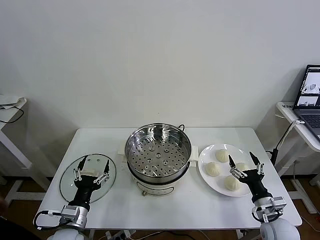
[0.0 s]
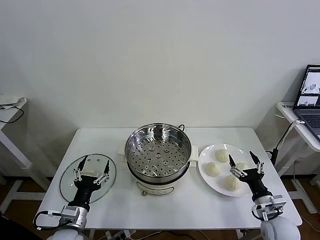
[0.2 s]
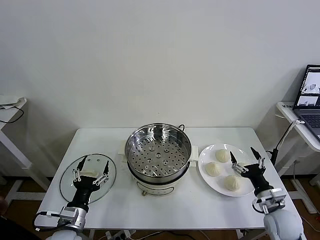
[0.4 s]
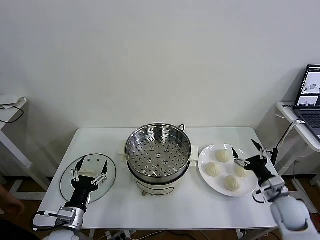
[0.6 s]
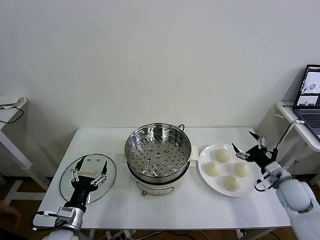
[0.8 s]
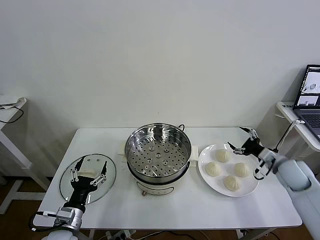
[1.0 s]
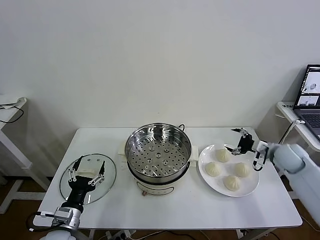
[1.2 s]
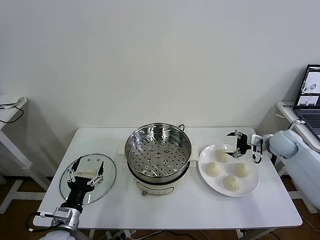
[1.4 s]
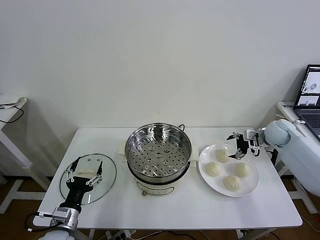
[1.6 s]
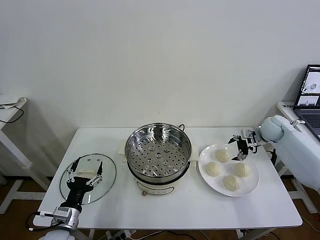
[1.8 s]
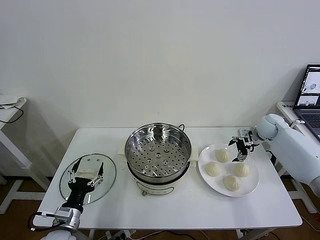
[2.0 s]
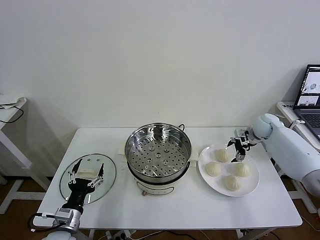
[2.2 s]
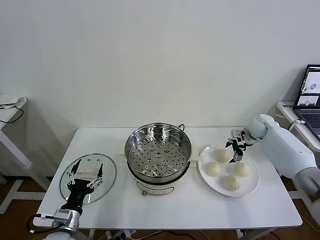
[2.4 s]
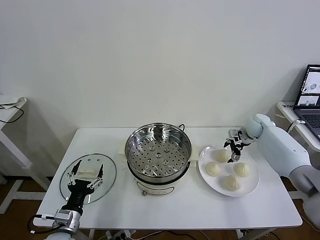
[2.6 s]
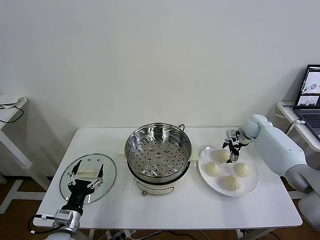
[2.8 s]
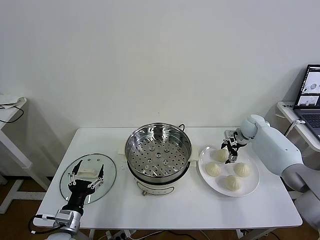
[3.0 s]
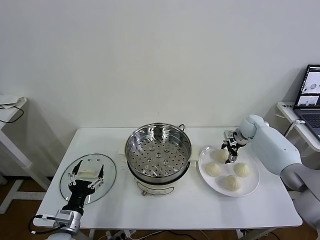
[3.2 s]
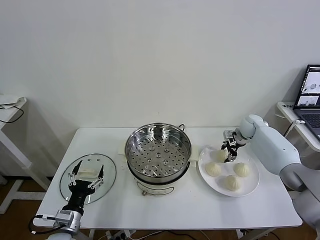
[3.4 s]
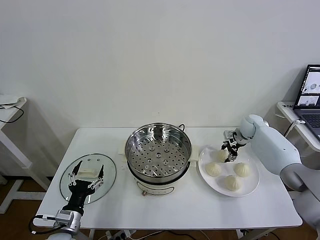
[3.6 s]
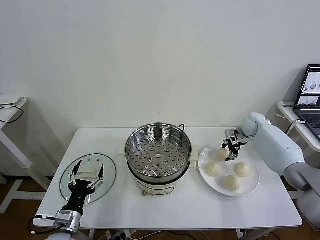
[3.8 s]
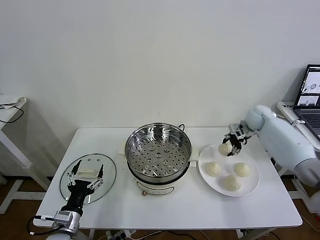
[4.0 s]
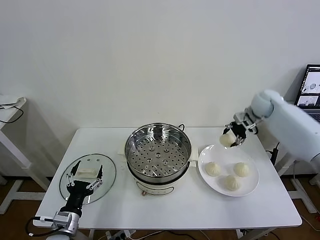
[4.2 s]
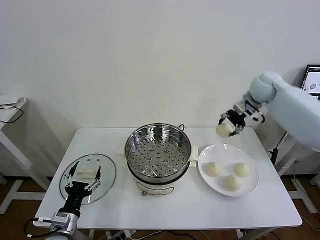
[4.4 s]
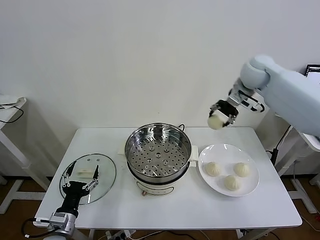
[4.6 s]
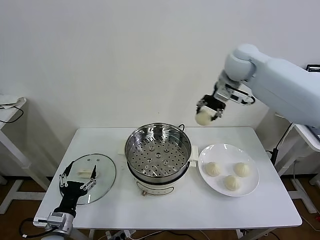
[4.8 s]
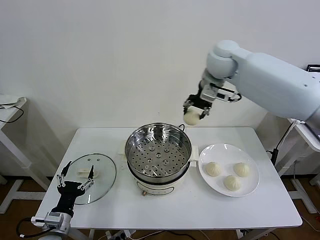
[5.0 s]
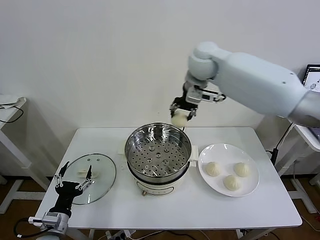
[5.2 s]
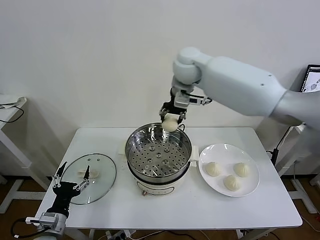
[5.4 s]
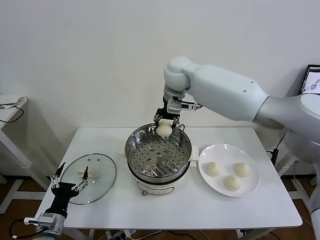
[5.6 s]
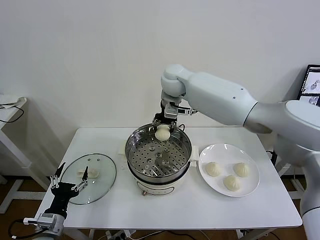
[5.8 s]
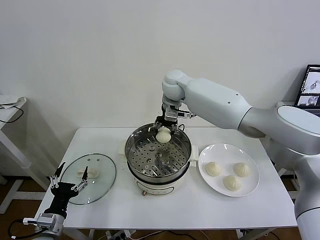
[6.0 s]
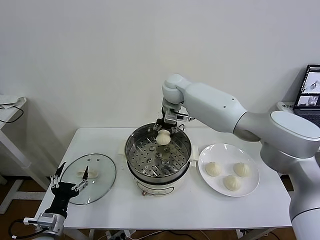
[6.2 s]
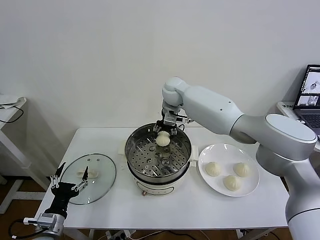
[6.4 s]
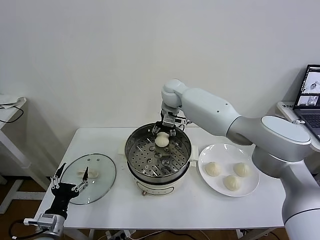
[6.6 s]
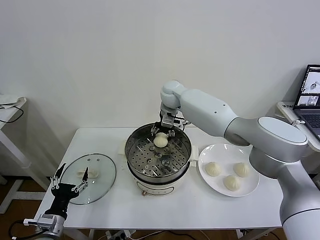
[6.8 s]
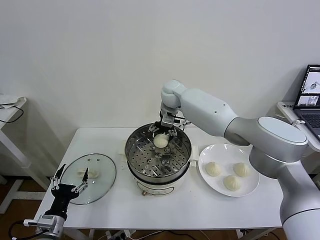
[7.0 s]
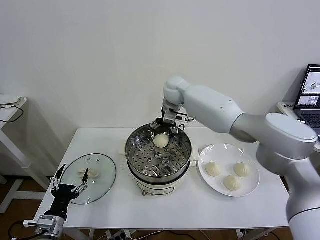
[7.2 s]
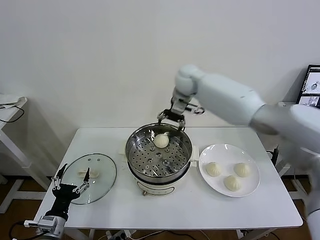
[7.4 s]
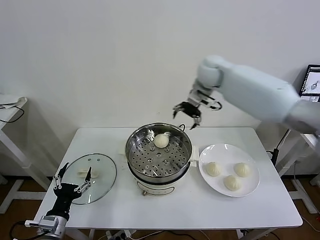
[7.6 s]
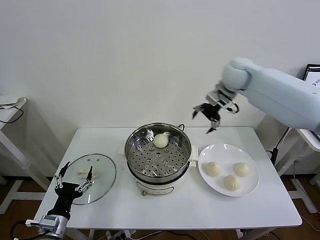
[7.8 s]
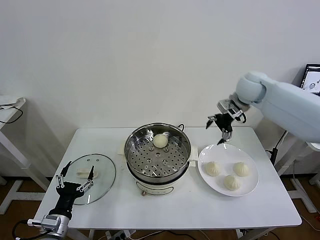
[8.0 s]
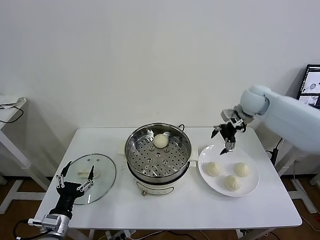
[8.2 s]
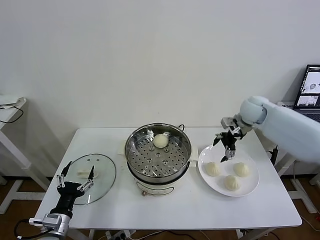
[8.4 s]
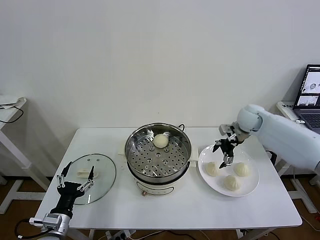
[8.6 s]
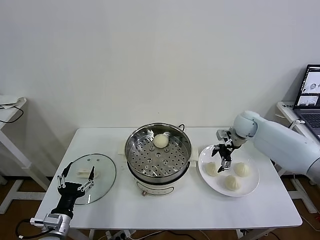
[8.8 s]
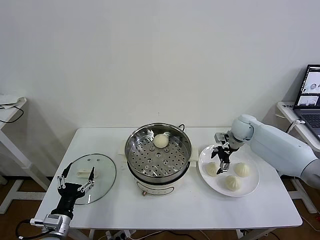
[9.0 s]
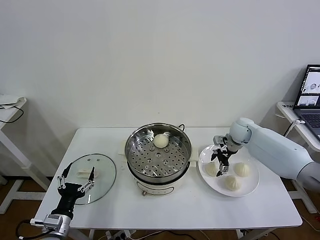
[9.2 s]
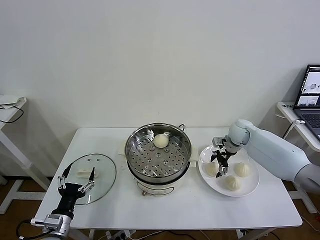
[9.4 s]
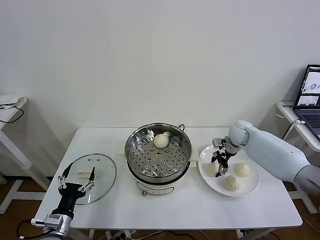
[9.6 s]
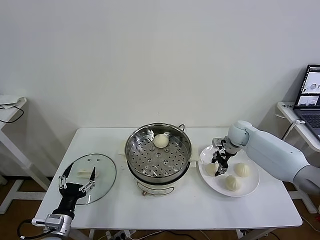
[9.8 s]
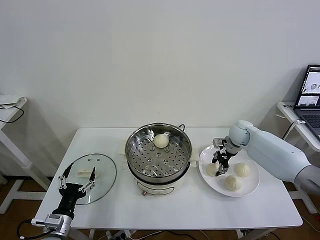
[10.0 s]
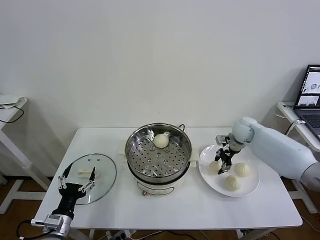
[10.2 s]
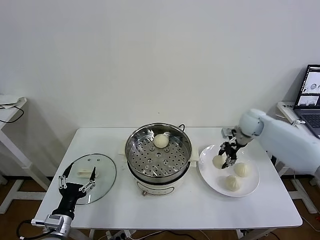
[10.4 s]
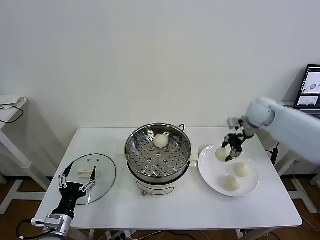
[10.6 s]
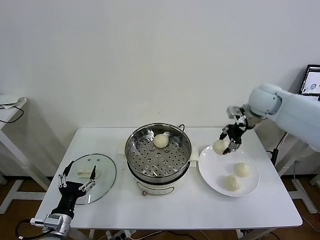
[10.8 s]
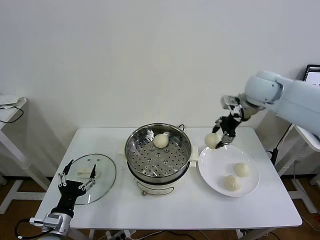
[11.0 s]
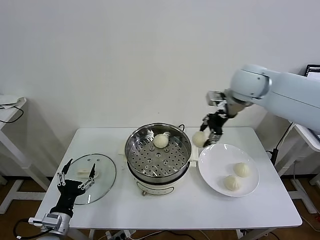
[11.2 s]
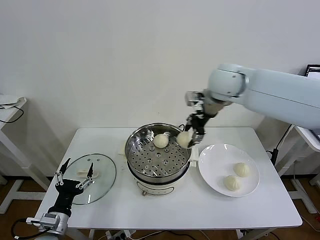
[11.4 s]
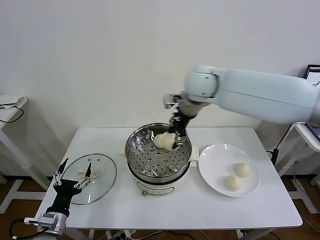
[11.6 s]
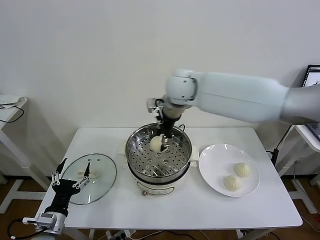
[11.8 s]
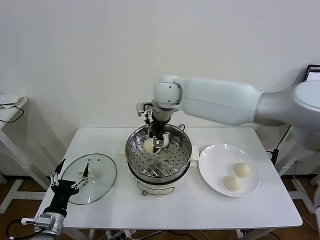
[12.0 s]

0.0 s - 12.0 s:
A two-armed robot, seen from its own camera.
Task of the whole recording: take steamed baozi put them in steamer then cover it.
Step, 0.0 s - 3.4 s: Grasp the baozi in the plate with right gripper.
Step, 3.6 s - 7.0 s: Place the baozi on the steamer with right gripper.
Step, 7.2 s - 10.0 s: Grasp the baozi in the plate with right gripper.
1.6 s - 3.0 s: The right gripper moves forward, approximately 5 cm.
3.0 s - 4.4 s: The right gripper is displaced upward by approximately 25 cm, and closes its fingers.
4.4 s - 6.0 s: The right gripper is displaced to the left by roughly 25 cm.
6.0 s - 7.6 s: The right gripper is displaced to the right and upward by about 15 cm, and opens its fingers.
7.6 s - 9.0 s: The right gripper goes about 25 cm downward and to the right.
9.0 s - 10.4 s: The right gripper shifts approximately 5 cm upward, and closes.
10.4 s - 12.0 s: The right gripper travels to the left by some 35 cm.

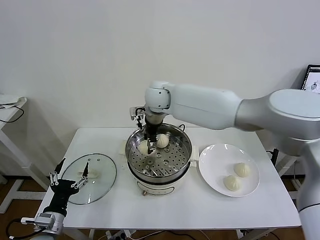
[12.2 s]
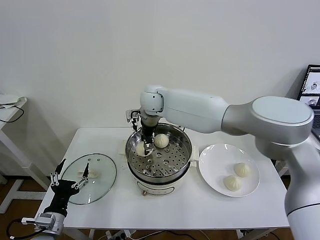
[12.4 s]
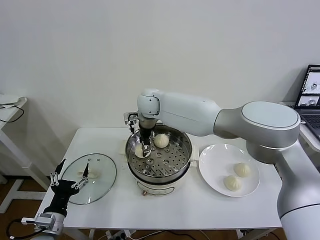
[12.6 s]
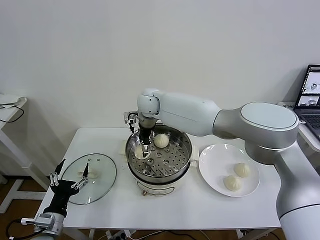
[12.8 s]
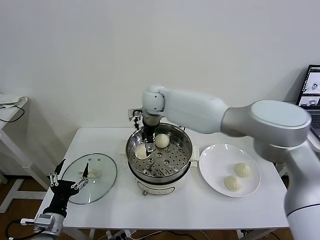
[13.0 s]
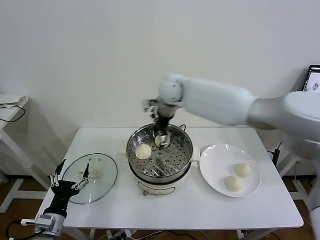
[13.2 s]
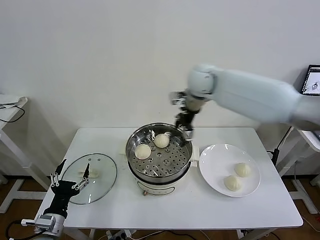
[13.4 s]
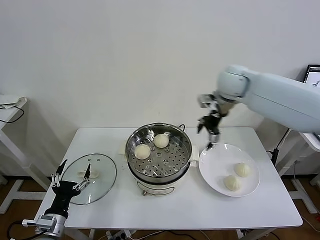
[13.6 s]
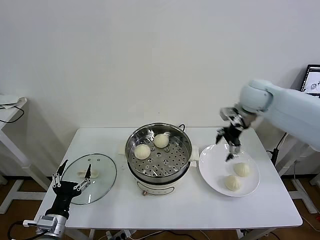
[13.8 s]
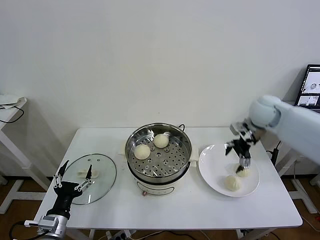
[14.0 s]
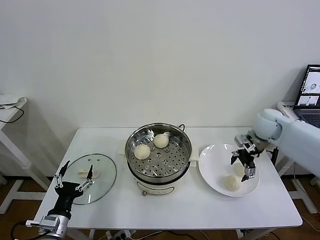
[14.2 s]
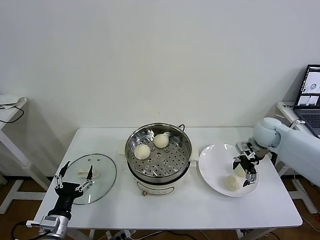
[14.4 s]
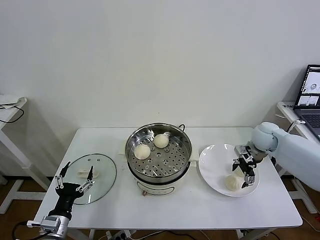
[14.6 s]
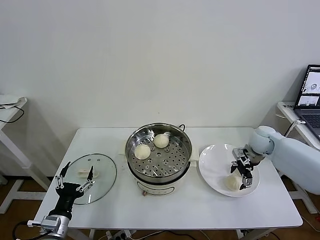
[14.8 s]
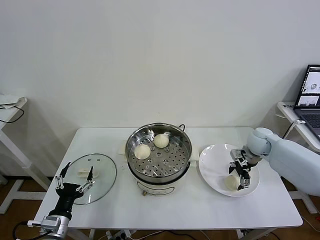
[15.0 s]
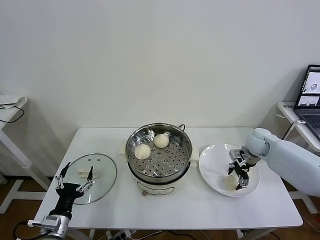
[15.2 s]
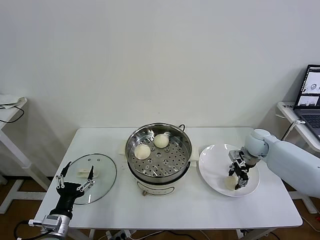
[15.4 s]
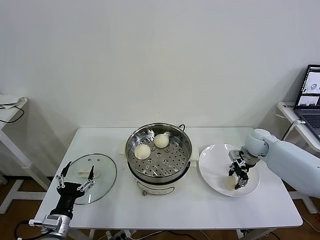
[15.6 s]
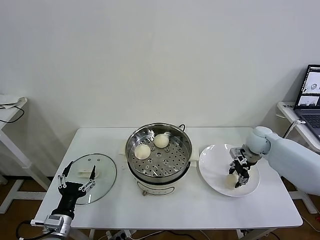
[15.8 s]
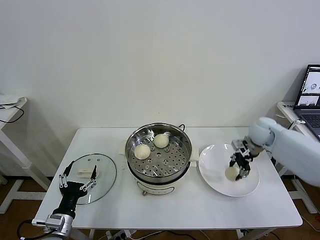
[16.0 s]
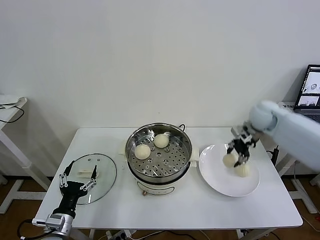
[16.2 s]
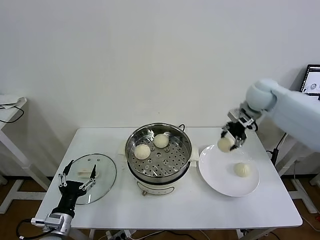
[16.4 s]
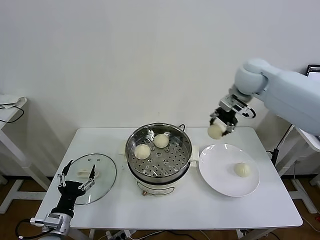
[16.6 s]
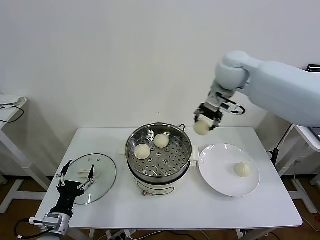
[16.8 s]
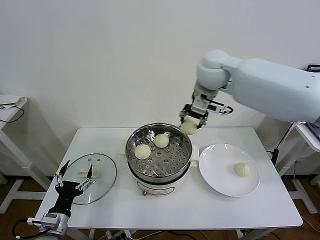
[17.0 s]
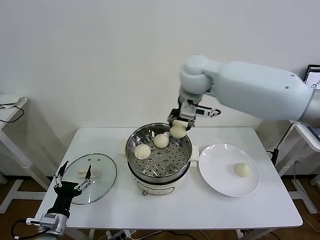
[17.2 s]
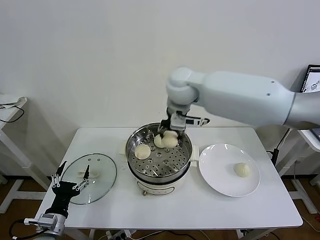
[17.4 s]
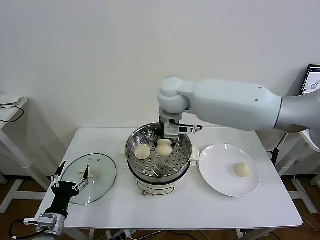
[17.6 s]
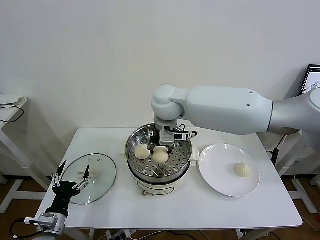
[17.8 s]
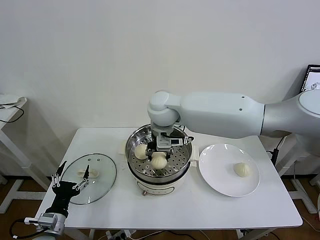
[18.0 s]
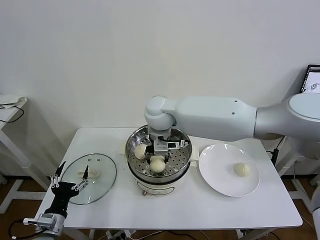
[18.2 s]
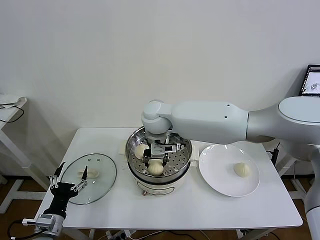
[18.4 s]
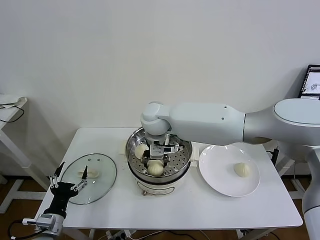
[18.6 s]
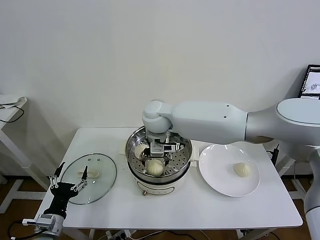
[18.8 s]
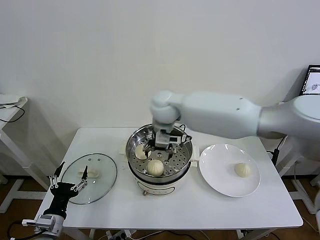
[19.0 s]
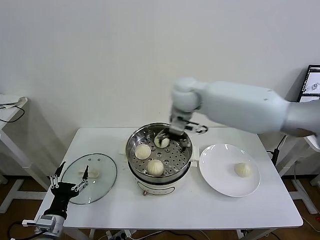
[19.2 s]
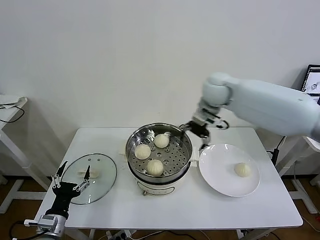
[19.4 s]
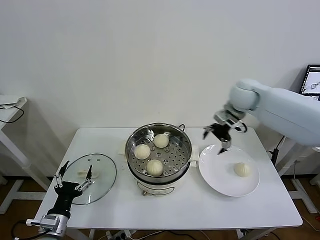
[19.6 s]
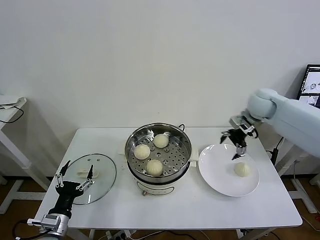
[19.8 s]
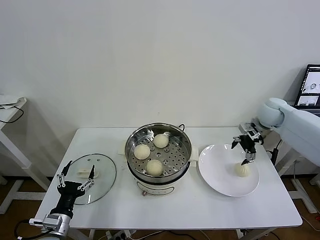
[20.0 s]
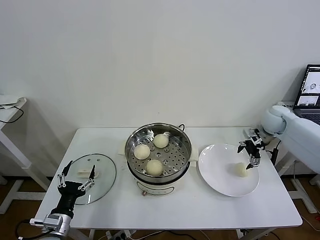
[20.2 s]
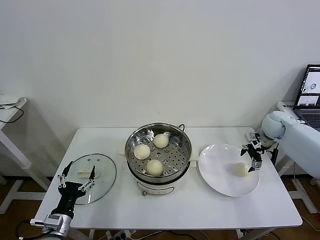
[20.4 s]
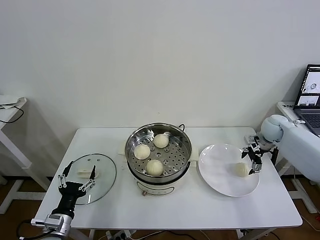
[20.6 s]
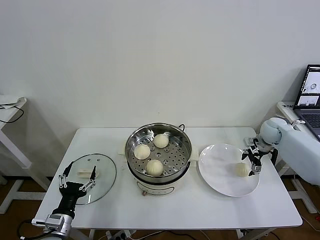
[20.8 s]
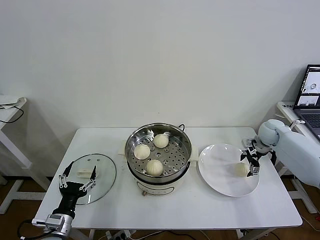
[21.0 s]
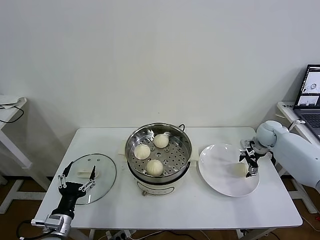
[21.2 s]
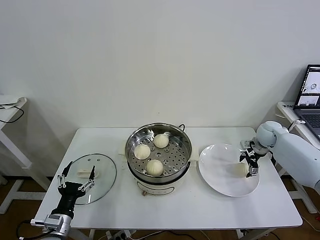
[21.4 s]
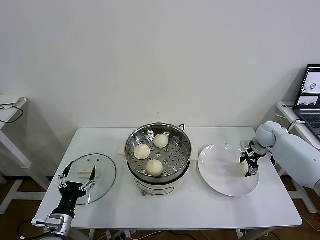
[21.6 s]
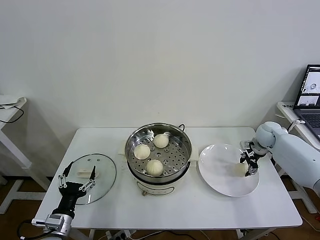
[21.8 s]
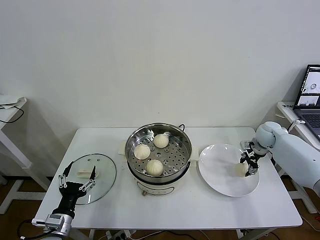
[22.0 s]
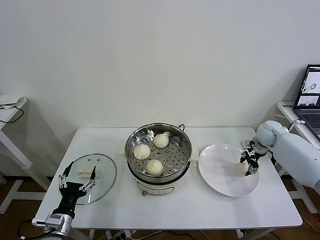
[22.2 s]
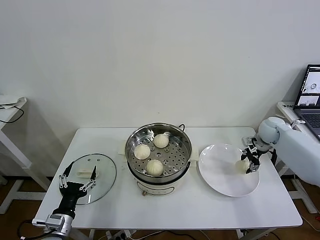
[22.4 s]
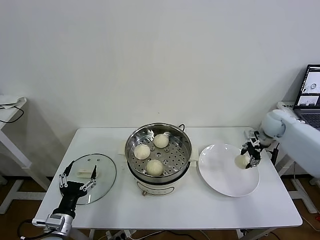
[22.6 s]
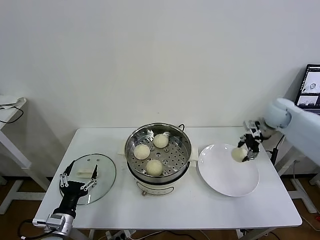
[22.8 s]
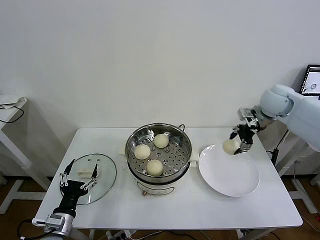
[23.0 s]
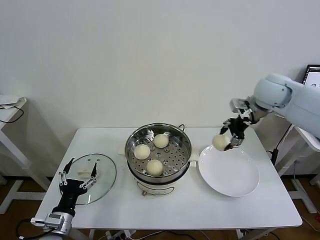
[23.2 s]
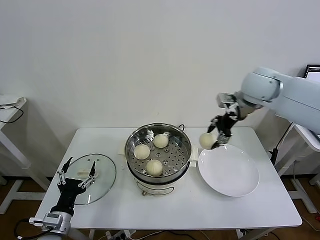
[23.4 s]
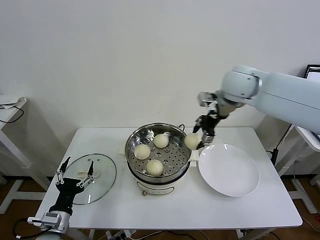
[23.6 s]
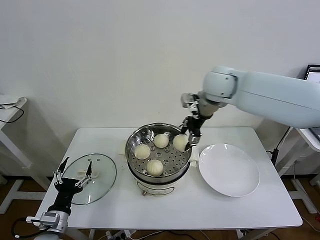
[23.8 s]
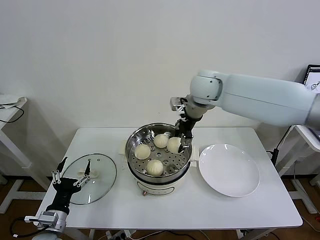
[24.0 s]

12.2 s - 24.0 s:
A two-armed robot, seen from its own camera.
Task of the whole recording: take steamed baozi put them in steamer then cover it.
Step, 13.0 s - 15.4 s: Grasp the baozi in the plate with right gripper.
Step, 15.6 s - 18.8 s: Place the baozi on the steamer with right gripper.
Step, 19.0 s - 22.4 s: Grasp the baozi in the plate with right gripper.
12.2 s - 13.6 s: The right gripper is displaced to the right by about 25 cm, and opens its fingers.
13.6 s - 15.2 s: The right gripper goes approximately 25 cm downward and to the right, and closes its fingers.
15.2 s - 16.6 s: The right gripper shifts roughly 30 cm upward and to the left, and closes.
16.6 s - 18.2 s: The right gripper is displaced to the left by approximately 25 cm.
18.2 s - 19.6 s: The right gripper moves to the right, some 30 cm, and opens its fingers.
19.6 s - 21.0 s: The right gripper is displaced downward and to the right by approximately 20 cm.
21.0 s - 22.6 s: The right gripper is displaced upward by roughly 5 cm, and closes.
22.6 s - 24.0 s: The right gripper moves to the left and upward, roughly 35 cm.
